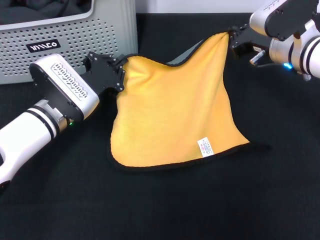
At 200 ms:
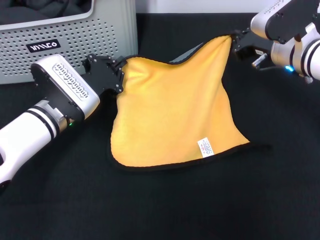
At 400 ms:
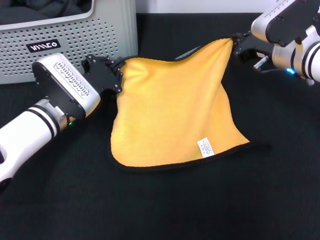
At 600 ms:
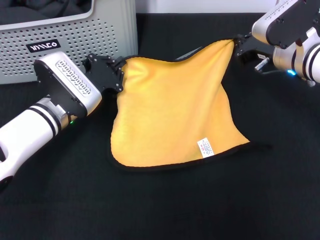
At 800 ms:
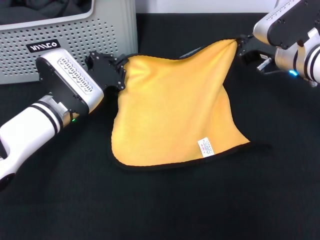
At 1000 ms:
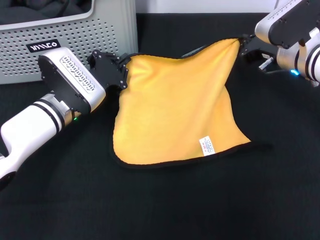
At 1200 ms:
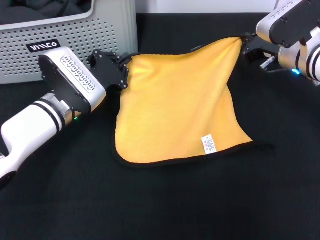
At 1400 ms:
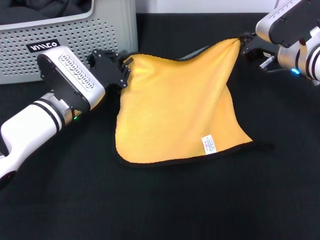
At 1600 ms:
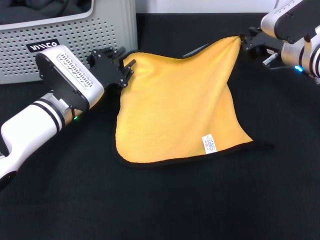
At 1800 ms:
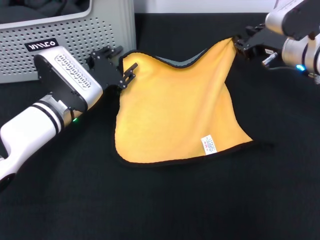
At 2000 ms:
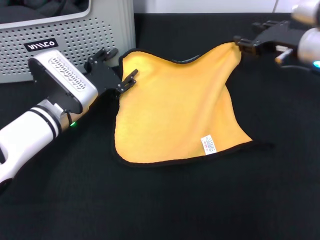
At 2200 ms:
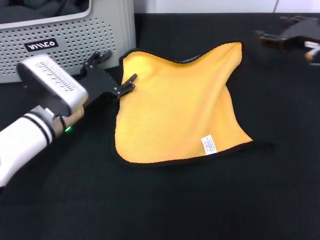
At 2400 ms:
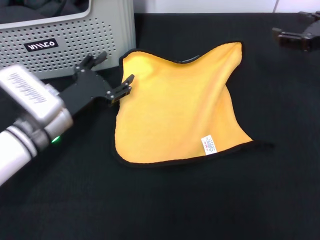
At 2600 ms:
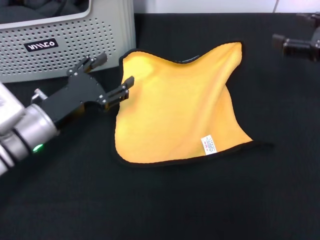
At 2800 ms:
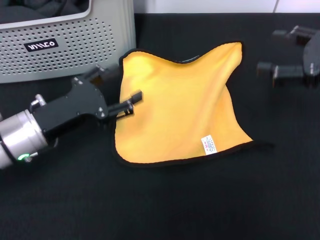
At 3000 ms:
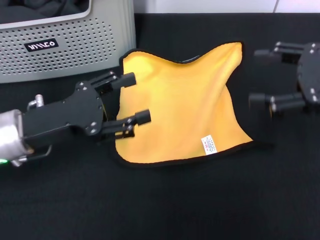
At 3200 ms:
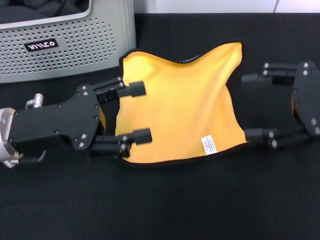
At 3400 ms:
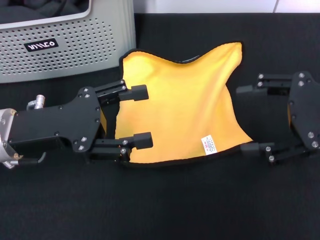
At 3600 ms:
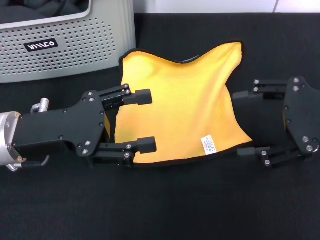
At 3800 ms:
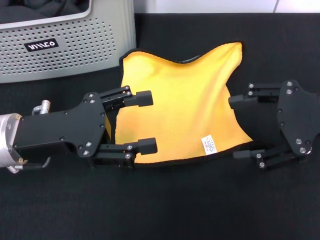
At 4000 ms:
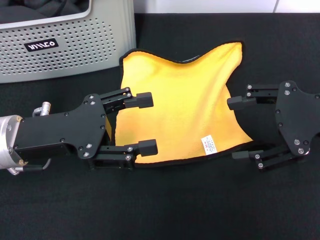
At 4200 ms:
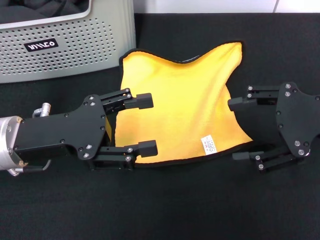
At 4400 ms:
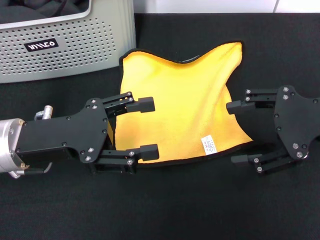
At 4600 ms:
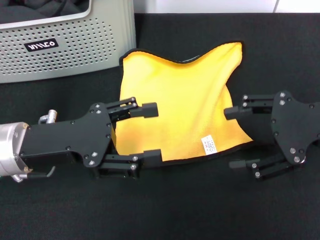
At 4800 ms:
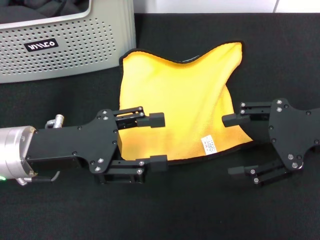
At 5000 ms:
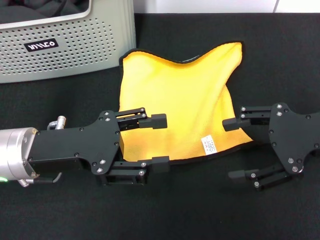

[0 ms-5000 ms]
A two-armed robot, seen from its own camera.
Task of the whole recording: pick up the towel from the storage box and lay it flat on the black tablecloth.
0 ms to 1600 ms: The grippers stay close to where they were, moving slightly.
1600 ms to 3400 ms: The right gripper goes roughly 20 cm backward, upward and to the right, and opens; the left gripper heads backward, upward and to the left, covering approximately 15 cm, and opens up.
